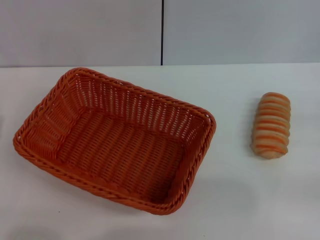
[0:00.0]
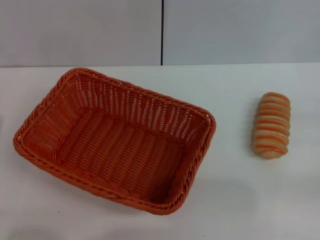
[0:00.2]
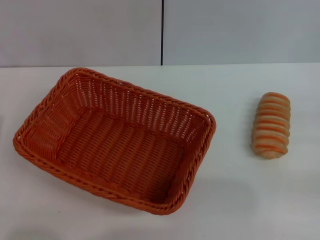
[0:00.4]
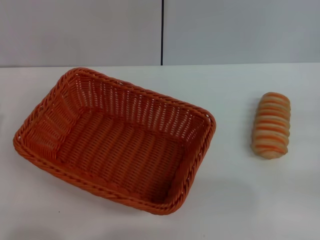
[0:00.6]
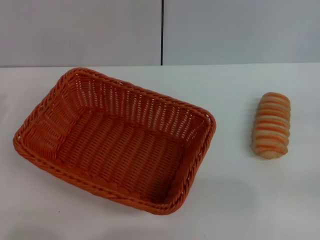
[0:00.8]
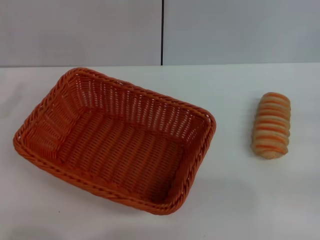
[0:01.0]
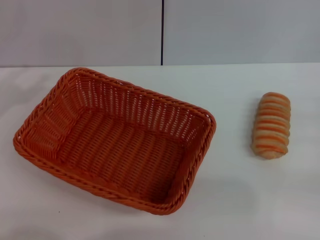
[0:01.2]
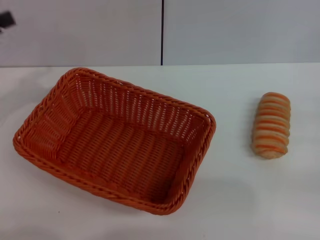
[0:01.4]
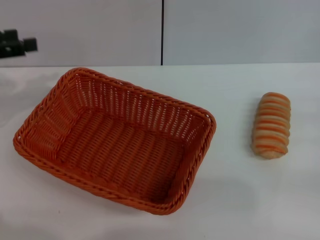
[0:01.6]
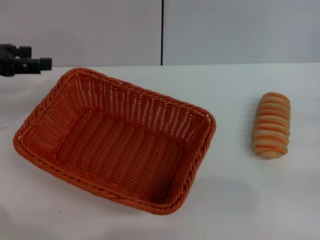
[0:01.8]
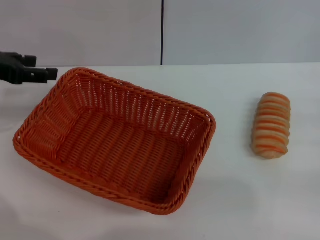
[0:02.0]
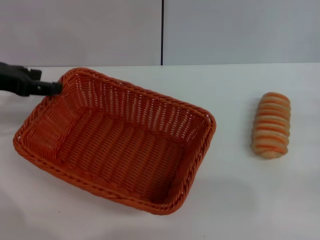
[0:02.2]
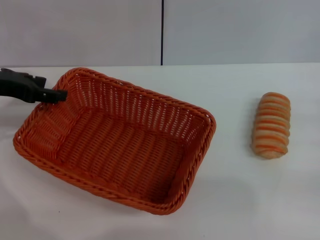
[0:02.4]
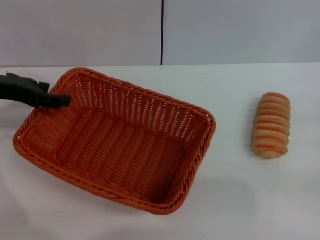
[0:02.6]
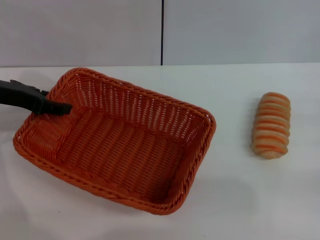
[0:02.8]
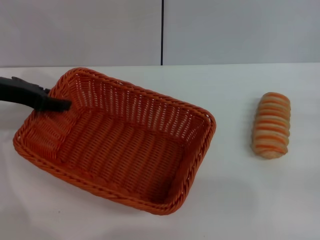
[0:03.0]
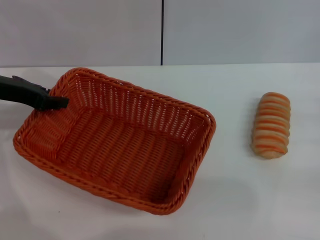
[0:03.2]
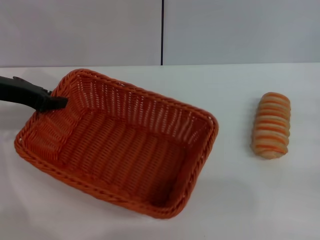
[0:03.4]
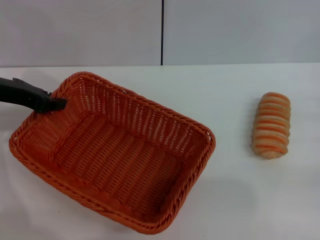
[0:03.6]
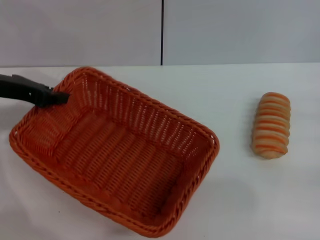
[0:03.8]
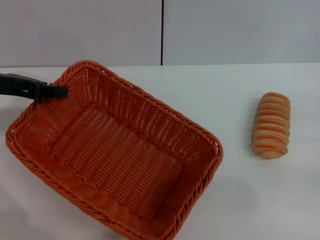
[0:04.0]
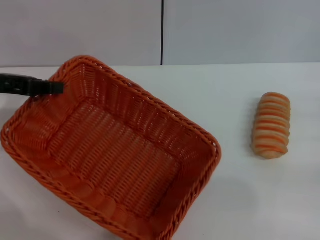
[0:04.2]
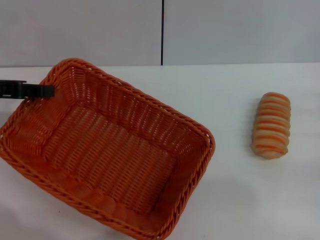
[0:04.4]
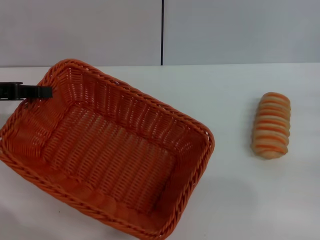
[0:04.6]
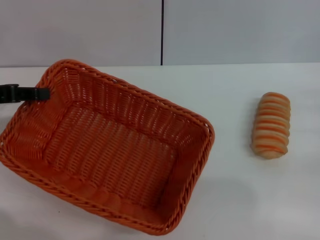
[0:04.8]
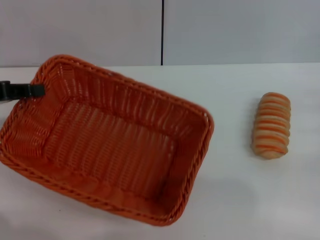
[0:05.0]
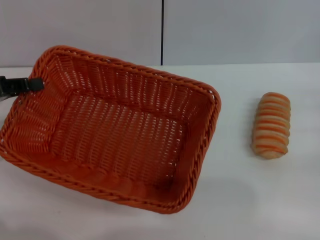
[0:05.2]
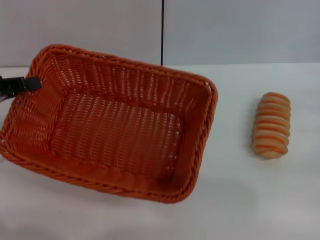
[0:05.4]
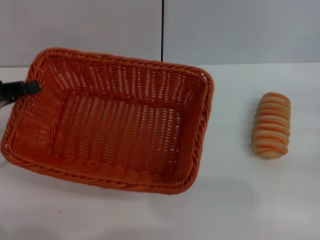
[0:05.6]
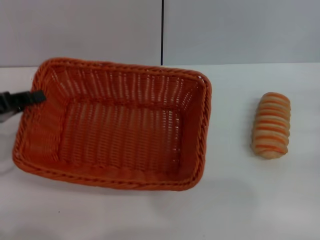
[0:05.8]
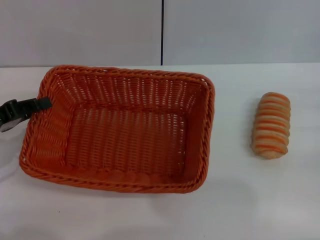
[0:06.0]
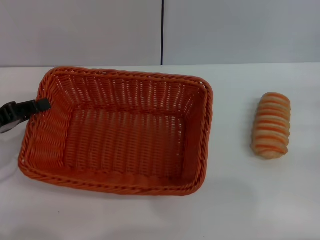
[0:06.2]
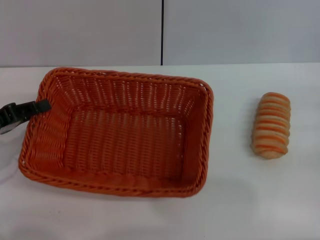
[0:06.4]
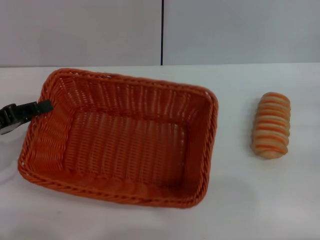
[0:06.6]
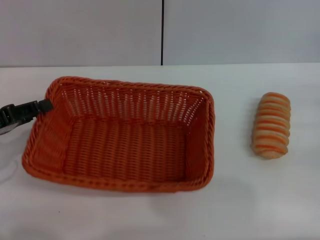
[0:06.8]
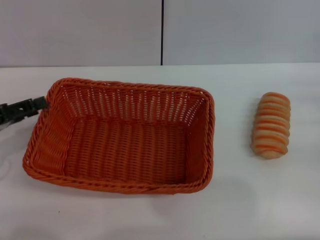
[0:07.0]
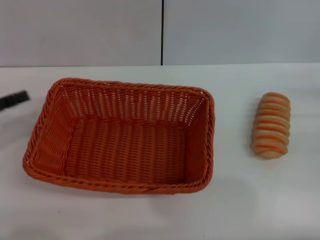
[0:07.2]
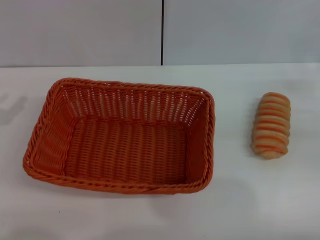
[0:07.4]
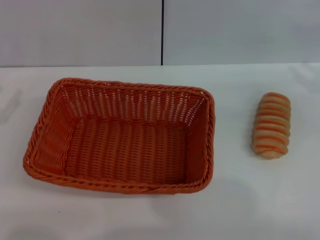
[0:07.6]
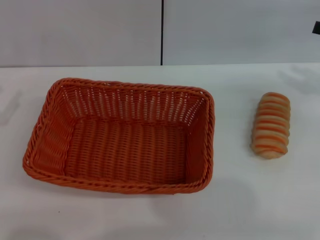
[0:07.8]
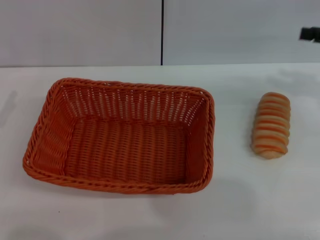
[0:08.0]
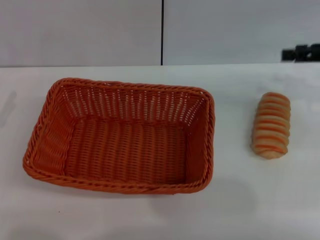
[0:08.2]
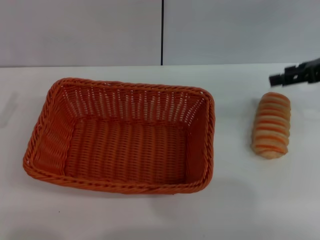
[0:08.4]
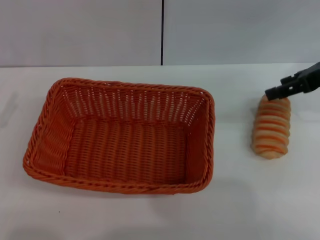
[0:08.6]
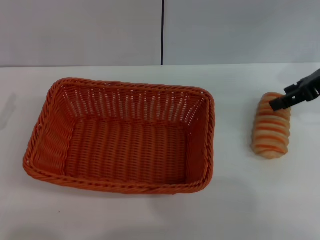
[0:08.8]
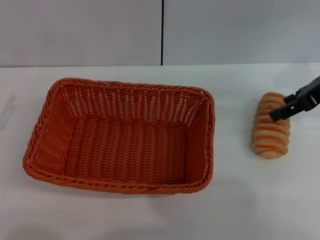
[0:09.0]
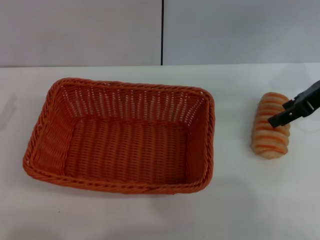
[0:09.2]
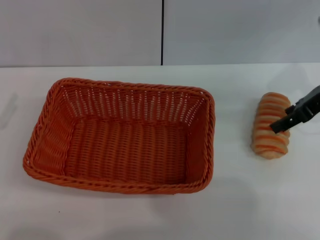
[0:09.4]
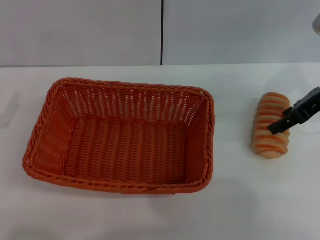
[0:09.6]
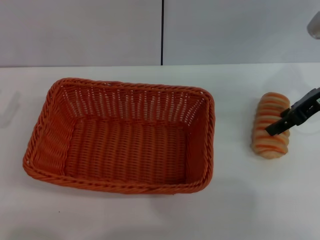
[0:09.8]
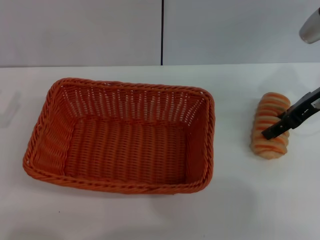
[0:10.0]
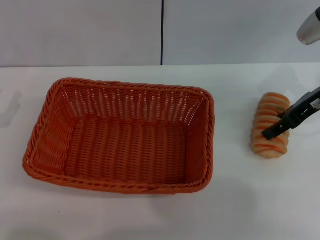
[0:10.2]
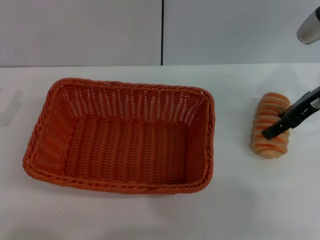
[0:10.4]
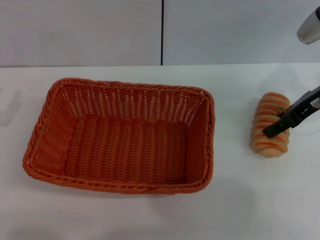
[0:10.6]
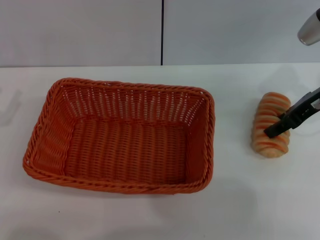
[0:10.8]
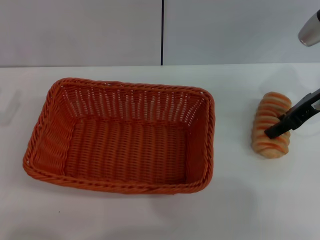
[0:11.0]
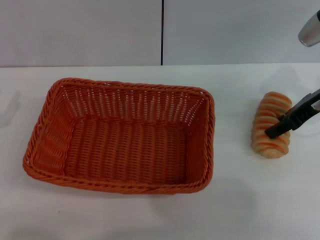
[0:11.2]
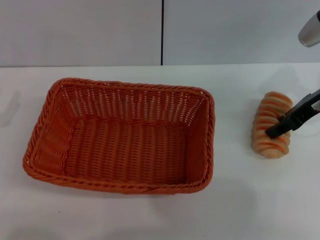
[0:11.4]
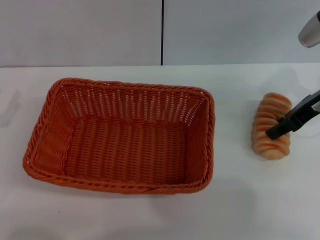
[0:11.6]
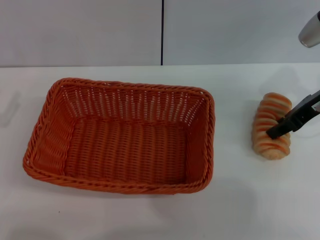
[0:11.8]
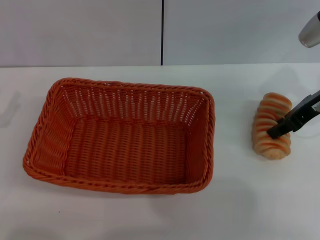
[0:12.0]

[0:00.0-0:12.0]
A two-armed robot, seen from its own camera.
Step, 0:00.0 to 0:05.4: Pick up the light basket with the left gripper.
Step, 0:05.6 to 0:07.0: Place the light basket in the center of view with the left gripper.
0:00.0 to 0:01.6: The left gripper shifts approximately 20 cm forward and upward.
0:01.6 to 0:03.0: The left gripper goes about 5 cm to the right.
0:03.0 to 0:04.4: The left gripper ends up roughly 5 cm from where it was, and closes up.
0:04.4 to 0:06.0: The left gripper heads downward, covering some 10 cm.
0:06.0 to 0:07.6: The left gripper heads to the left, covering approximately 5 cm, and opens its fingers, while the right gripper shifts about 10 cm upward and forward.
0:07.6 to 0:09.0: The right gripper shifts roughly 10 cm to the left and upward.
0:09.0 to 0:10.4: The grippers move only a little.
0:10.4 to 0:12.0: The right gripper closes up.

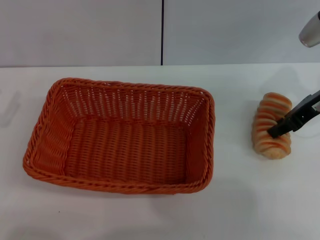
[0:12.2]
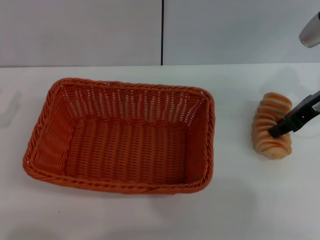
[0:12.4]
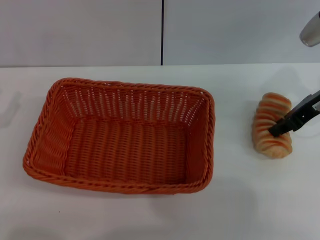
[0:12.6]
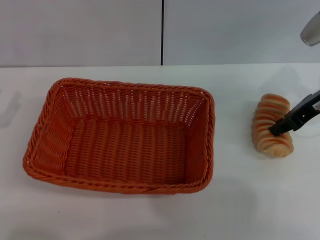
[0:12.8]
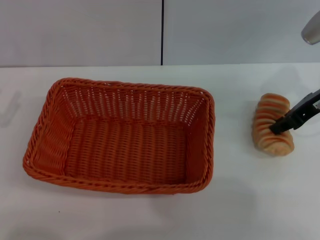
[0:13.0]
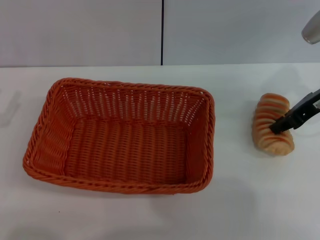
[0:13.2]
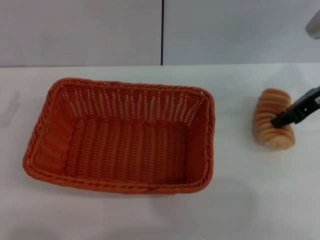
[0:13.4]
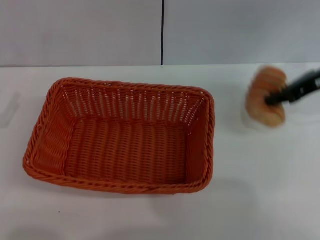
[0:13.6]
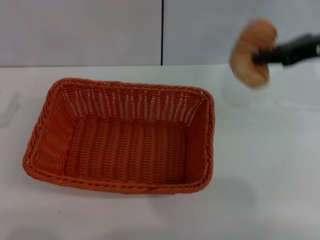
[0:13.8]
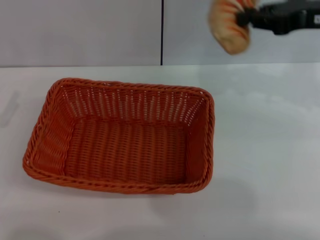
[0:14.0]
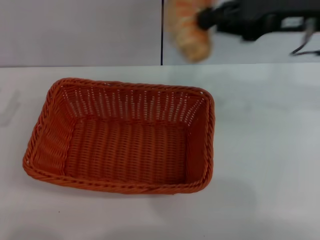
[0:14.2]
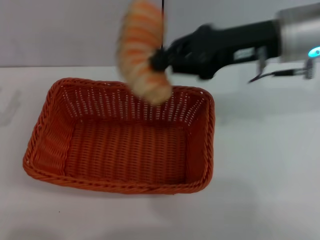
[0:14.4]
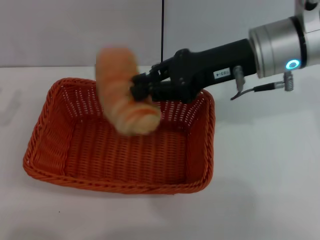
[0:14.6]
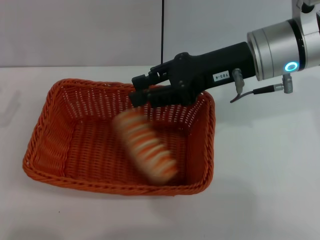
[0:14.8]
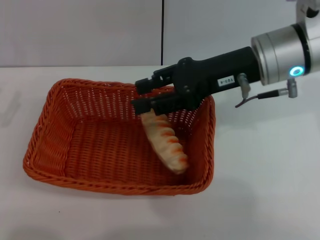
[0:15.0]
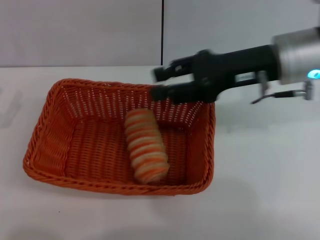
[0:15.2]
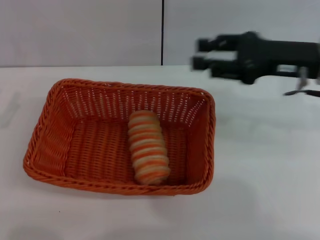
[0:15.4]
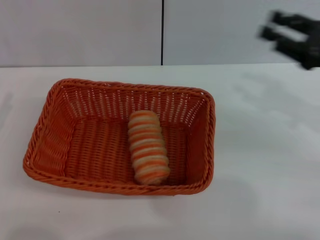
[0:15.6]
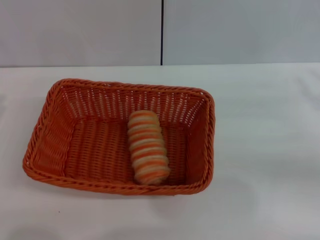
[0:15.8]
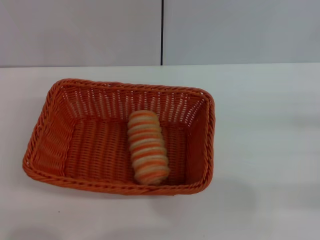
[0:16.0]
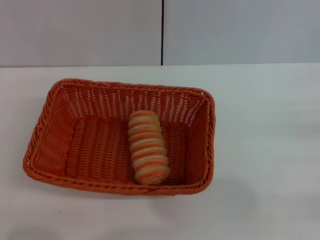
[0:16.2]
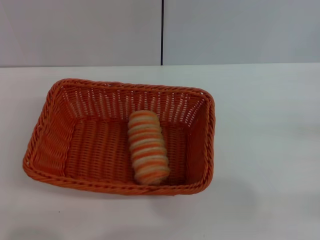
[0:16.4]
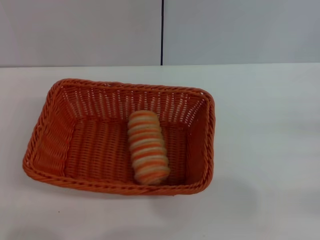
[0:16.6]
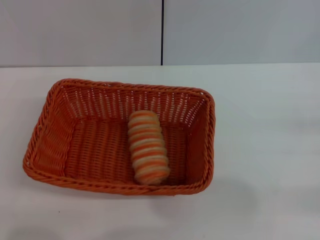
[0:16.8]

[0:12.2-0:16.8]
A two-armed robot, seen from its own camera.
Step, 0:14.2 to 0:15.2: Place the long bread into the light basket with the right gripper.
0:12.2 to 0:13.8: The right gripper travels upward by some 5 cm.
0:13.8 to 0:15.2: The right gripper is displaced to the left by approximately 10 cm, and opens its fingers.
0:15.2 to 0:16.8: The left gripper shifts by about 5 cm, while the right gripper moves to the right, backward and downward, some 30 cm.
